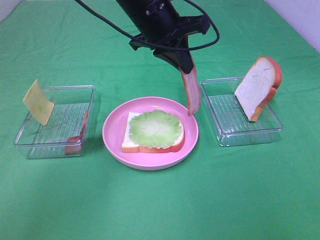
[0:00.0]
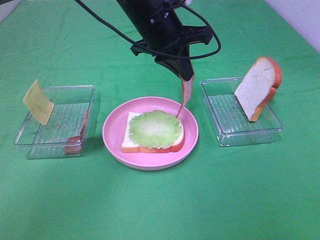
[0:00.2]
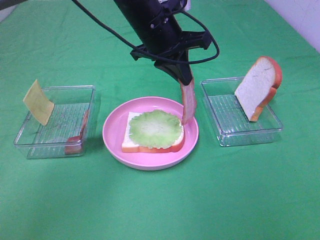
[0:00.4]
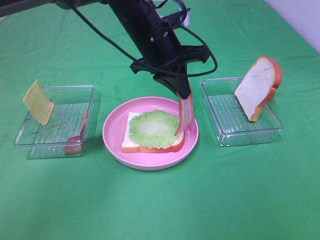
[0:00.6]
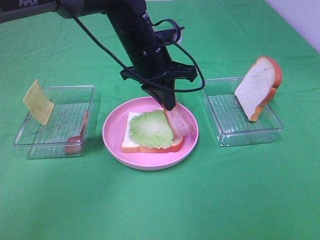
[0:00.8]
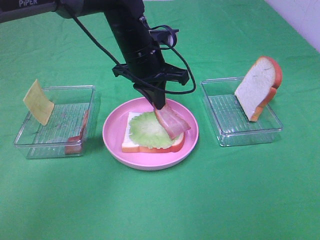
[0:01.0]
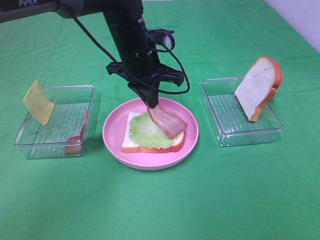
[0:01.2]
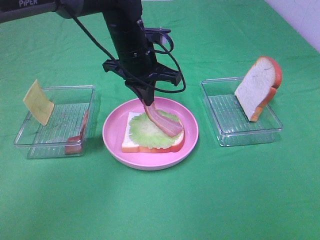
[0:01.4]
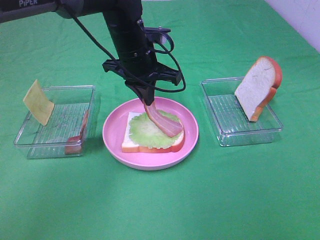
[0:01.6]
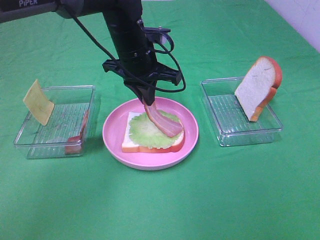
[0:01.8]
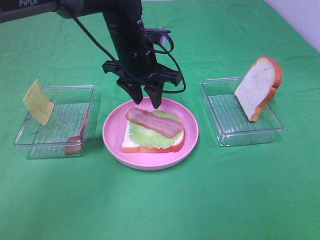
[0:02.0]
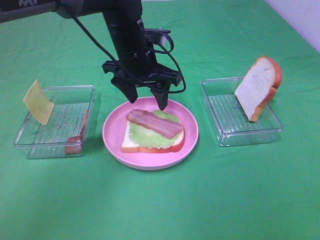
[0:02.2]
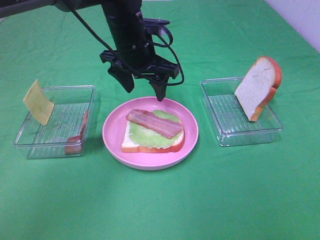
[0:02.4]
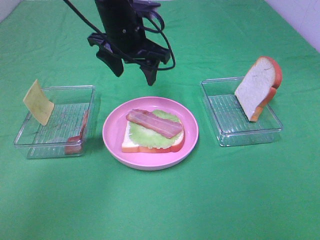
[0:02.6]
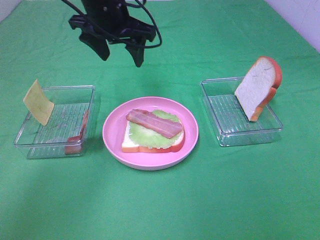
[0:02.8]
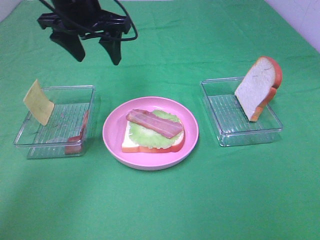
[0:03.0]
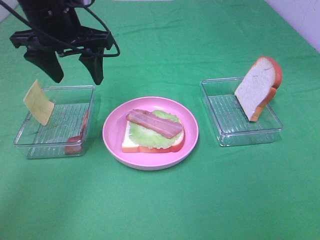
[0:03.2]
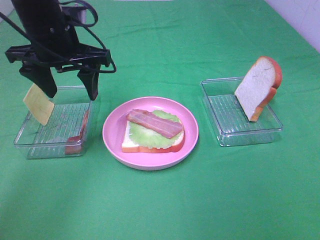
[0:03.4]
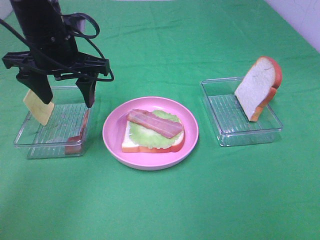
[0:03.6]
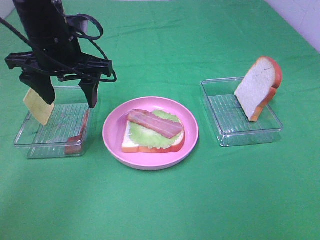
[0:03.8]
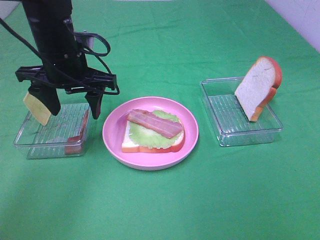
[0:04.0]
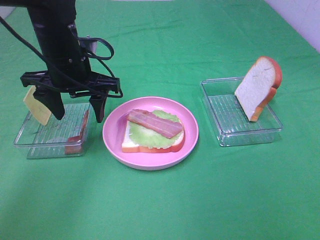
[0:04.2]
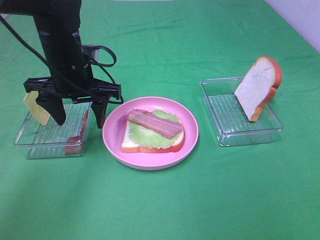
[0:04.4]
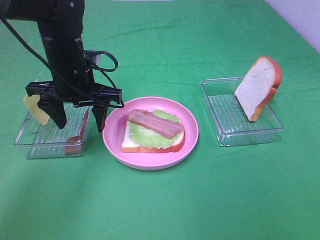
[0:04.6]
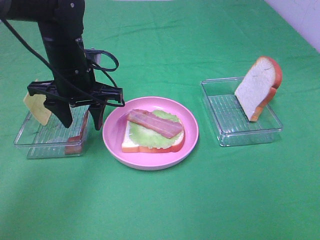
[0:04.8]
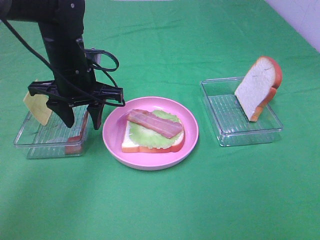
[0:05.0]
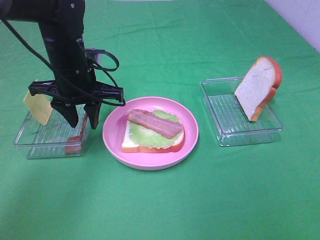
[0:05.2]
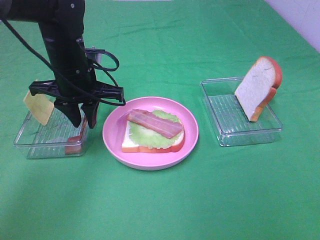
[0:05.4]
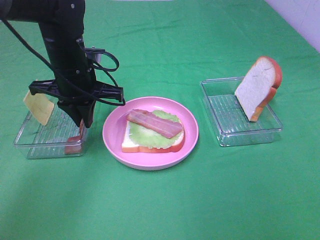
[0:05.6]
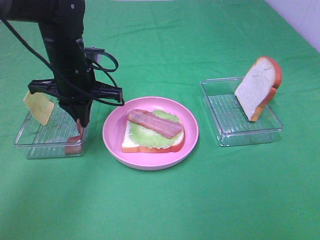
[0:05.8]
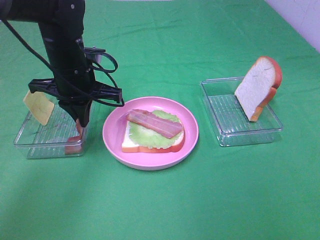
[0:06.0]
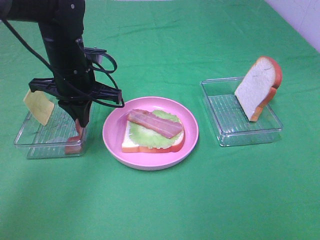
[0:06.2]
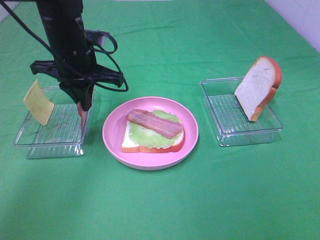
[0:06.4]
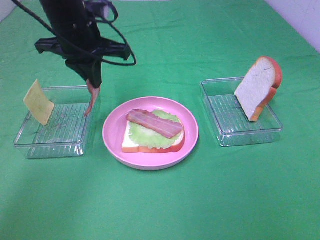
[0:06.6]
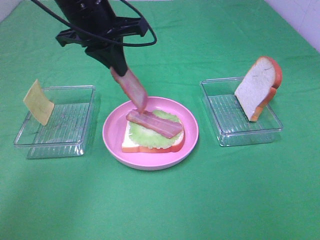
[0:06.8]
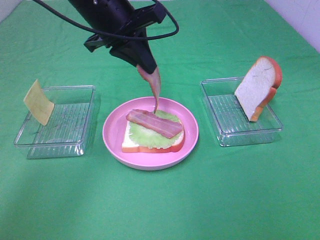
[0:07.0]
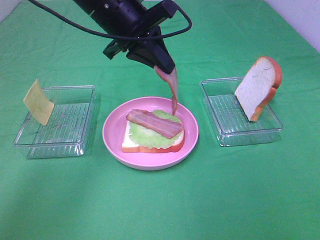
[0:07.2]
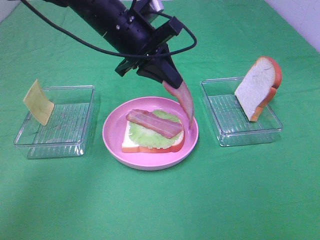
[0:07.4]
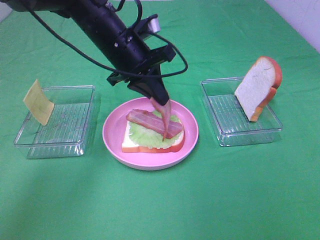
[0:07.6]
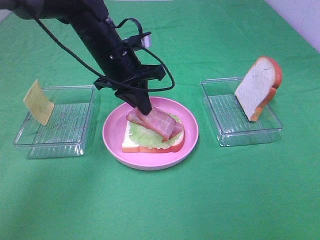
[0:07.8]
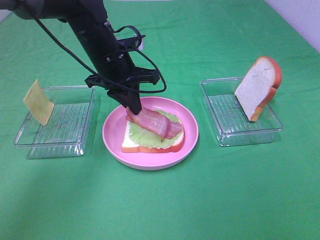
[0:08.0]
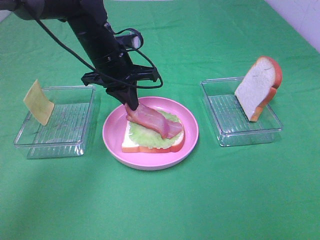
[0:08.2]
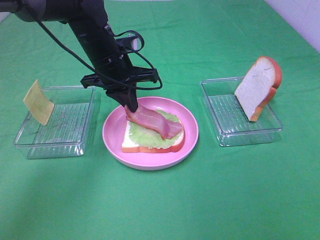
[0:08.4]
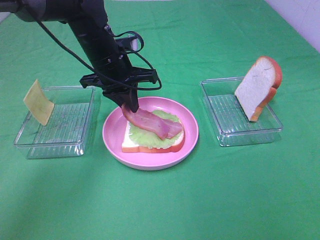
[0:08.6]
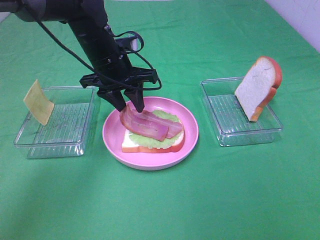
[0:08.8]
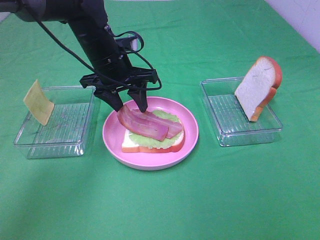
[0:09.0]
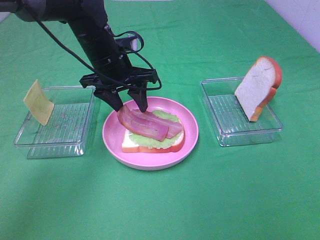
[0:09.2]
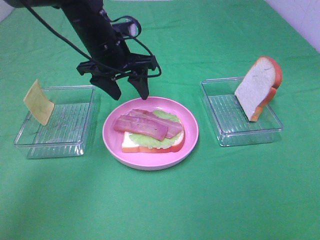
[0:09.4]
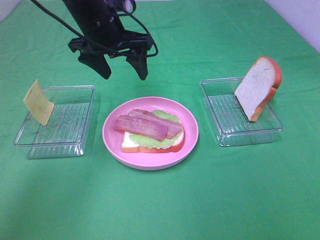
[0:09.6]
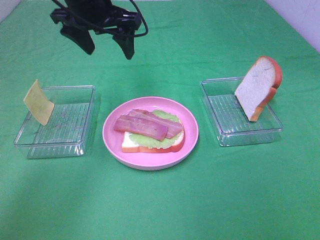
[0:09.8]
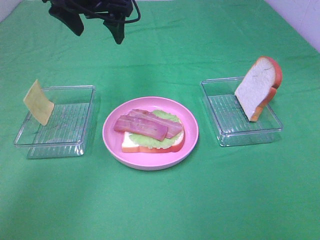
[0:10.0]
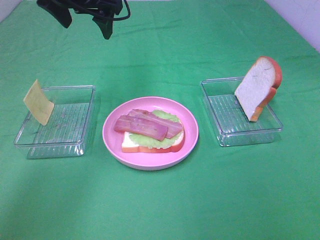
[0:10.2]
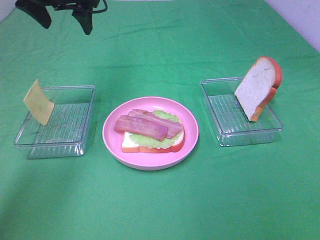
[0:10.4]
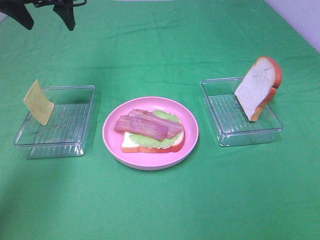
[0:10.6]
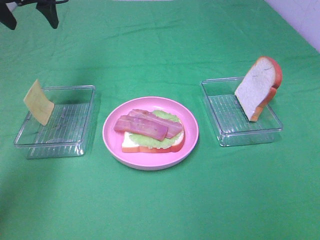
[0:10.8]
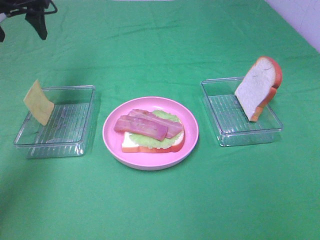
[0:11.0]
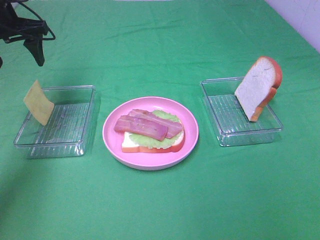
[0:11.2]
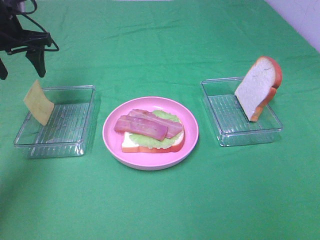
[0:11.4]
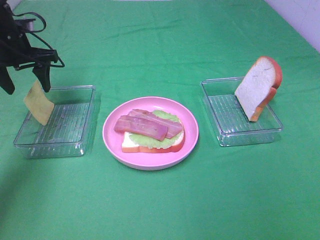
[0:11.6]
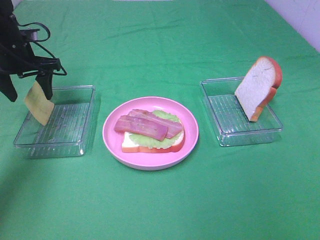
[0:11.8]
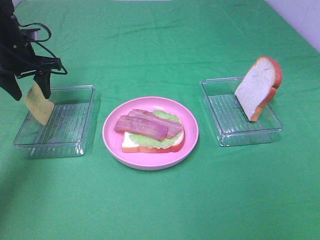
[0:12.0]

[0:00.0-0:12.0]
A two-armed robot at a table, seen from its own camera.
Task of the whole recording: Make sandwiches.
Step, 0.0 to 2.2 s: Left hand:place bacon on lettuce slice.
Step, 2.4 to 6.2 s: Left hand:grab the bacon.
Step, 6.4 to 9.4 s: Left hand:place bacon on bacon.
0.0 to 1.6 s: The left gripper moves downward, roughly 5 cm.
1.6 to 3.0 s: The left gripper is displaced to the left and upward by about 15 cm, and opens up.
3.0 to 4.4 s: The left gripper goes some 10 cm downward.
4.4 to 6.0 s: The left gripper closes up.
6.0 to 7.6 s: The left gripper shifts approximately 5 cm to the right, and goes upward and returns, approximately 10 cm each way.
7.6 to 9.0 s: The left gripper opens up.
9.0 to 10.4 s: The left gripper travels upward and to the left by some 15 cm.
10.4 to 12.0 s: The left gripper moves downward and to the left, some 15 cm.

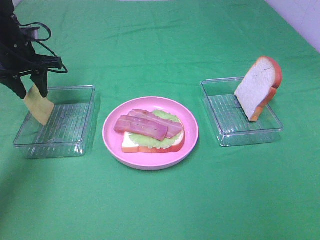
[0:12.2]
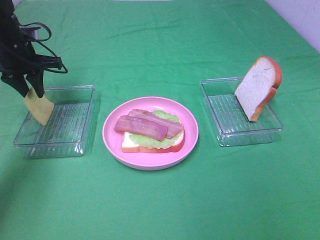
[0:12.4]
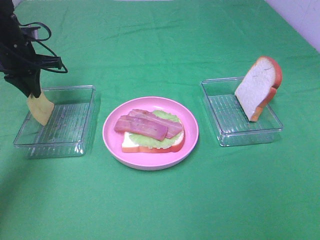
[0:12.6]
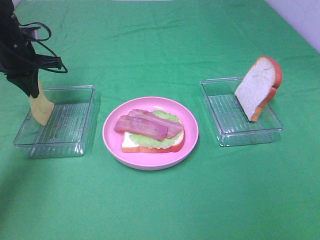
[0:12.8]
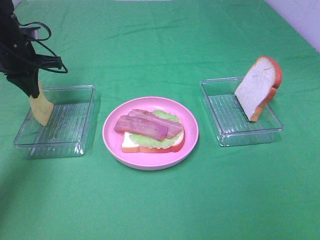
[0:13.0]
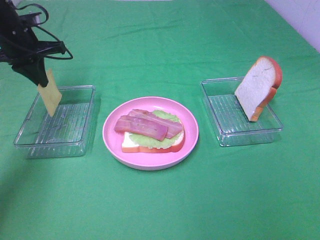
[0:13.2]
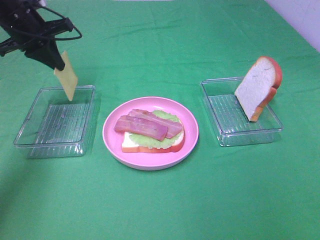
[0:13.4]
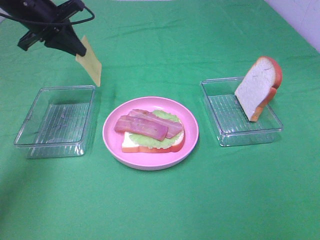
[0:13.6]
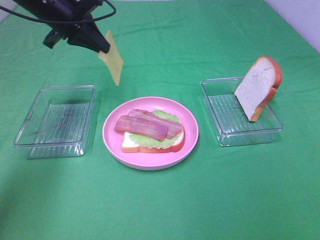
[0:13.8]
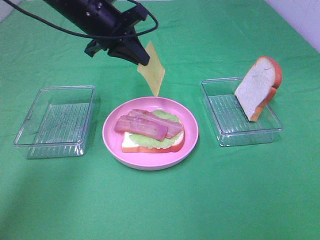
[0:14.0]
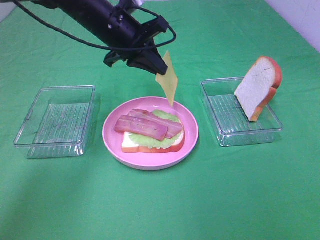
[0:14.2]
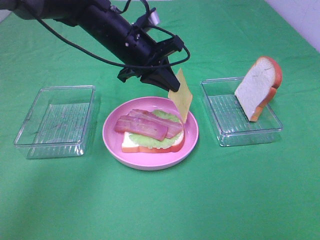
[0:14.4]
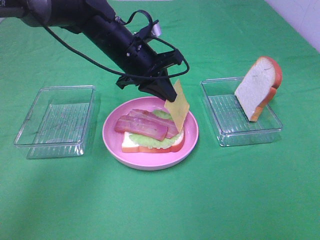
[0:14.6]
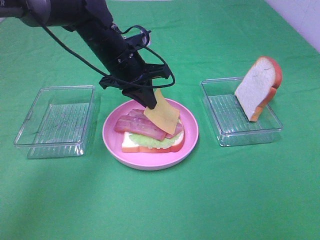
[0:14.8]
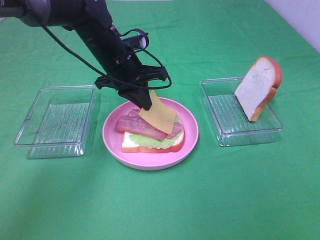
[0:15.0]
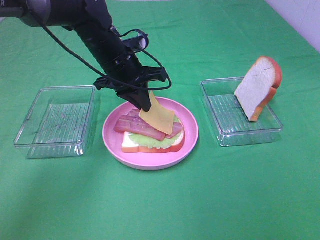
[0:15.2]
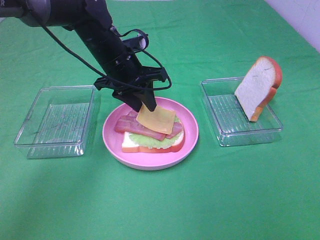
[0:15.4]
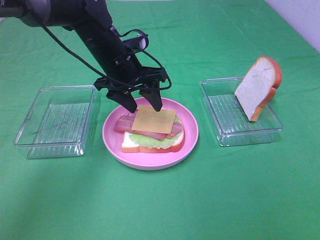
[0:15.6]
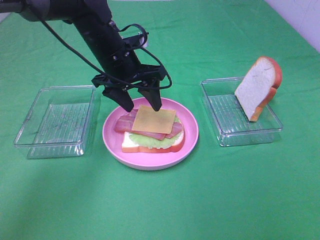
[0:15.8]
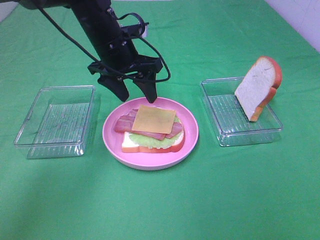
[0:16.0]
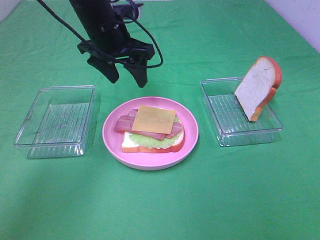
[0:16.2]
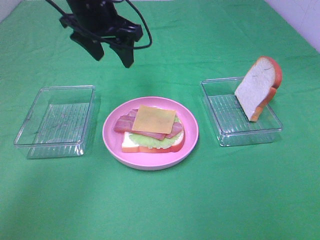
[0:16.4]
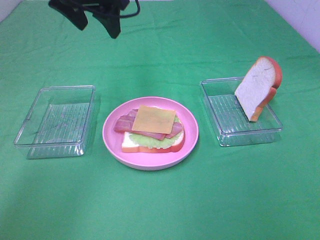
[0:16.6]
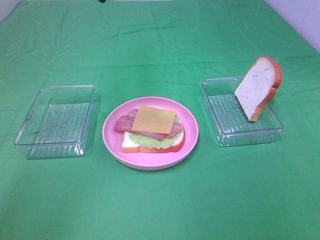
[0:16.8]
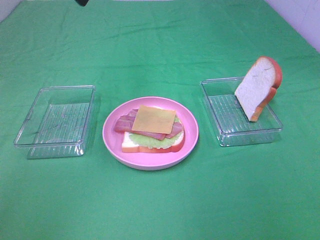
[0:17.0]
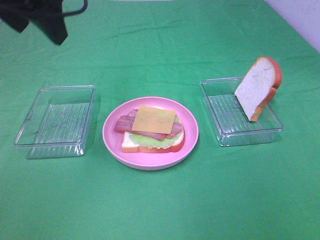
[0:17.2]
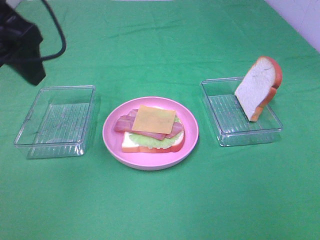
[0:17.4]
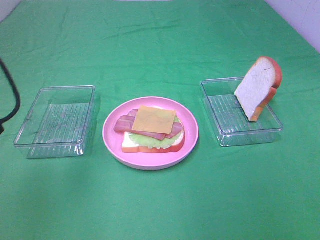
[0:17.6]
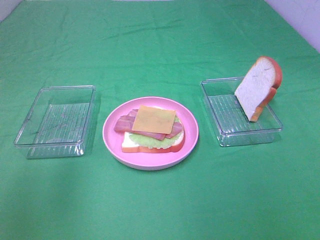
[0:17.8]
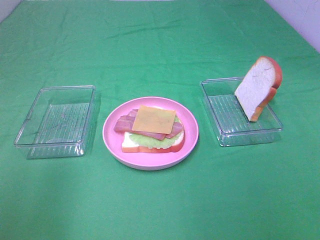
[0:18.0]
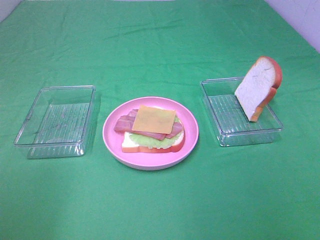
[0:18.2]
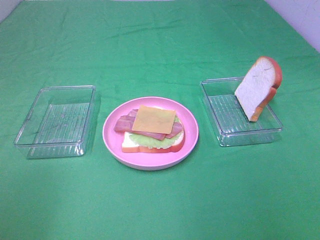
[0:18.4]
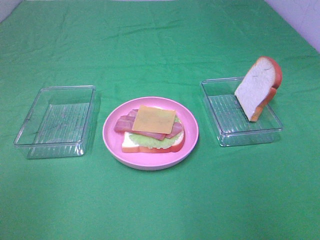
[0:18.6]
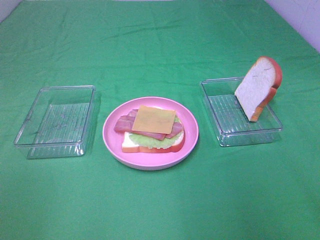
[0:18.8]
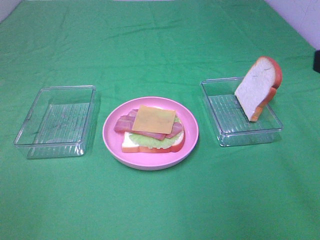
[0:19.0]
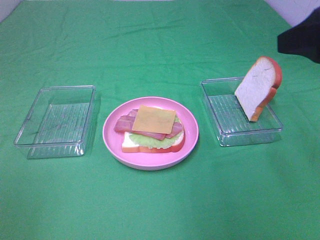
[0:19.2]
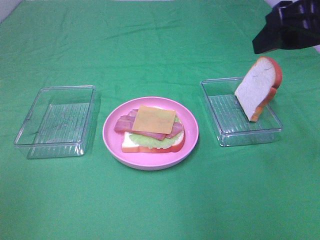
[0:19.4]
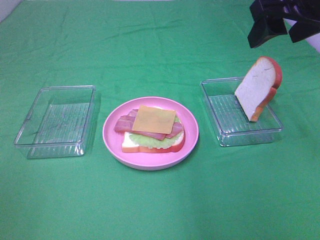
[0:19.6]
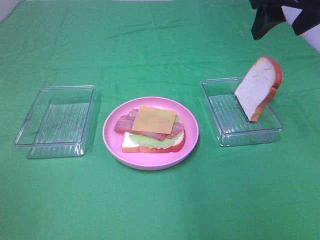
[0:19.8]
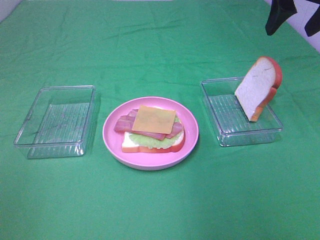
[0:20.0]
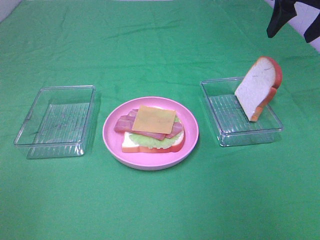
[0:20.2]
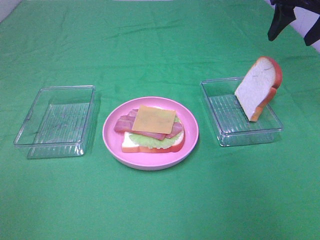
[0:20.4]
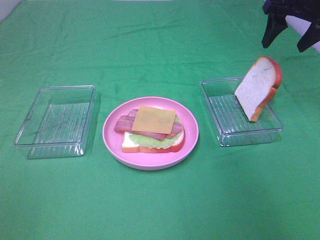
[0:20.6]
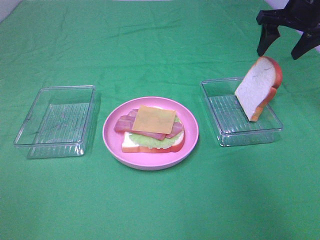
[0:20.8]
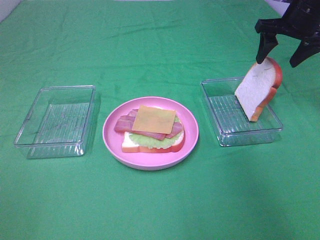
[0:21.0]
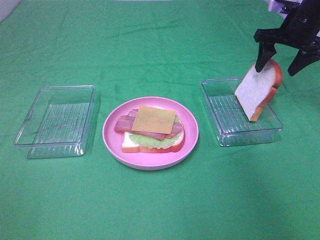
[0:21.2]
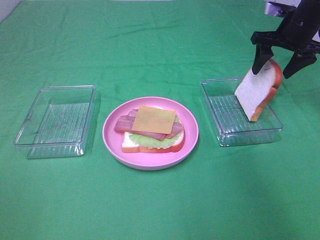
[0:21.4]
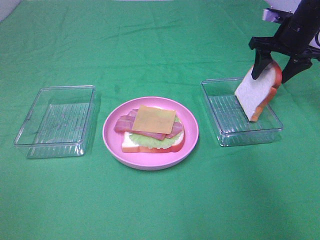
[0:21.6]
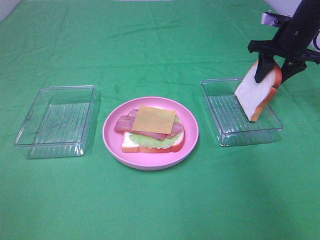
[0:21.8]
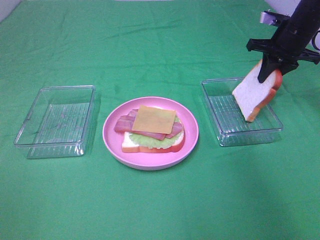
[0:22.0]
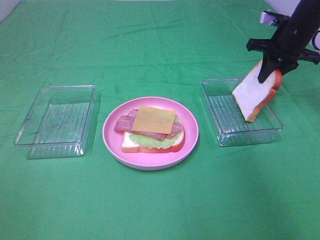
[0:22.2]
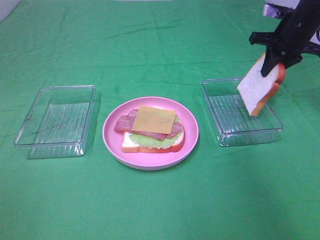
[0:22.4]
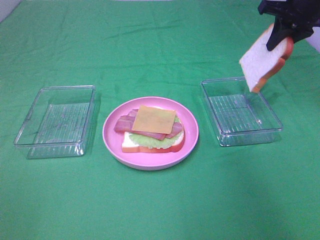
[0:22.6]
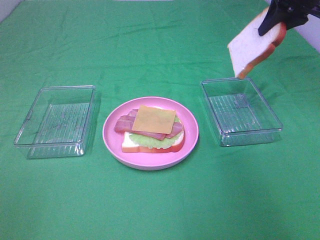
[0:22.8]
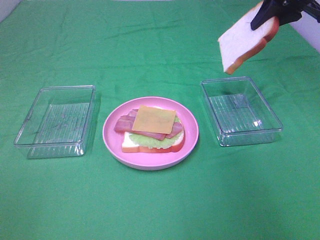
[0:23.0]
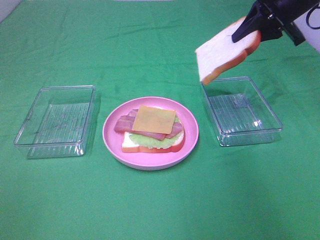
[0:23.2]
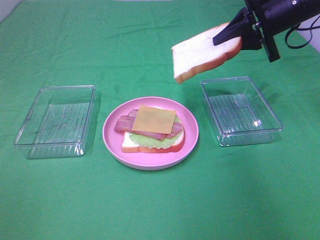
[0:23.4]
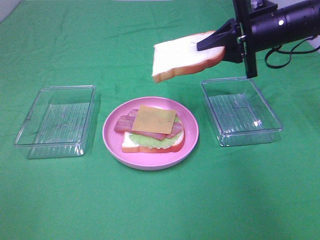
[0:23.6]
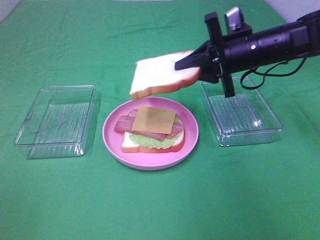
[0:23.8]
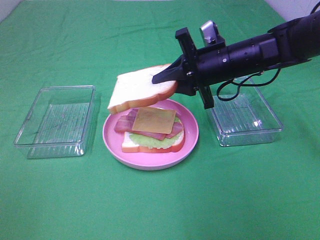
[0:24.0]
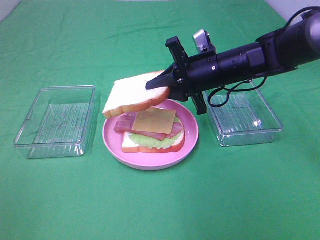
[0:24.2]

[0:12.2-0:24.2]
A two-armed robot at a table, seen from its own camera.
Task of the whole recording: Make sandwiches.
Step, 13.0 to 15.6 s: Left hand:place the cheese slice on top of the bacon.
Step, 15.8 to 22.0 s: Right hand:grab the bread slice.
12.2 to 13.8 s: The left gripper goes roughly 15 cm to the right and upward, and closes its fingers.
13.8 to 15.2 s: The left gripper is displaced to the right and downward by about 15 cm.
15.2 to 16.6 s: The left gripper goes about 15 cm upward, and opens up.
16.6 to 18.2 s: The left gripper travels backward and to the left by approximately 35 cm.
18.2 to 19.8 s: The right gripper is displaced forward by approximately 35 cm.
19.8 to 21.2 s: The right gripper heads forward, downward and to the right, covering roughly 20 cm.
21.2 to 22.6 s: The right gripper goes approximately 5 cm upward, and closes up.
22.6 to 24.2 s: The right gripper shifts some 20 cm to the left, downward and backward.
